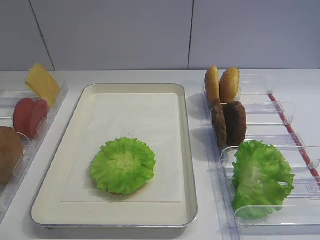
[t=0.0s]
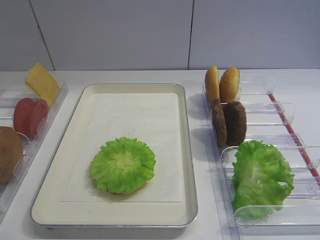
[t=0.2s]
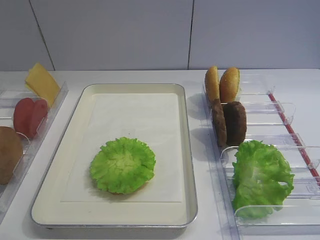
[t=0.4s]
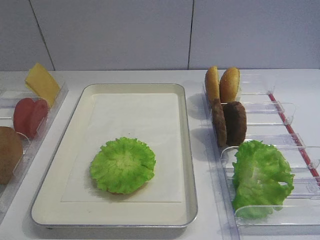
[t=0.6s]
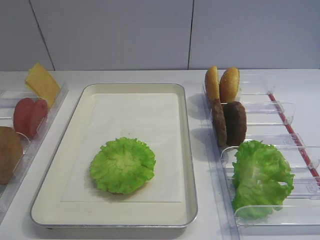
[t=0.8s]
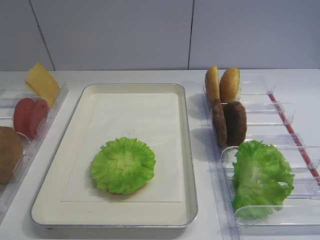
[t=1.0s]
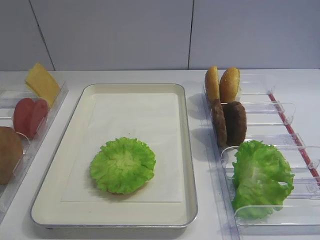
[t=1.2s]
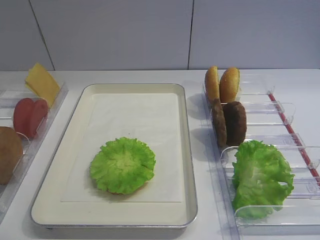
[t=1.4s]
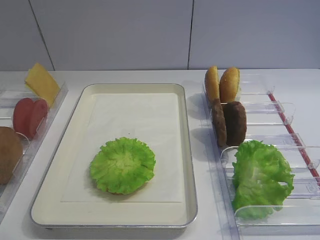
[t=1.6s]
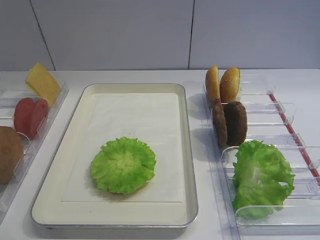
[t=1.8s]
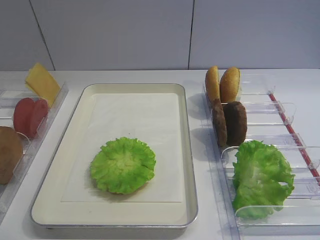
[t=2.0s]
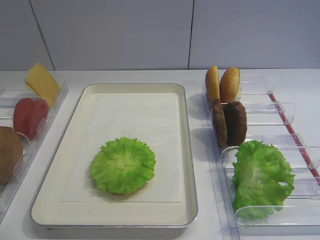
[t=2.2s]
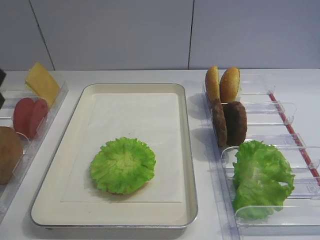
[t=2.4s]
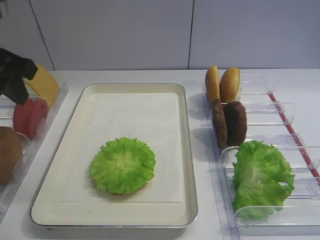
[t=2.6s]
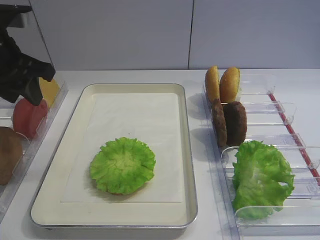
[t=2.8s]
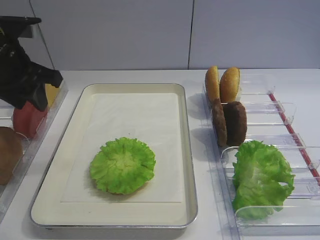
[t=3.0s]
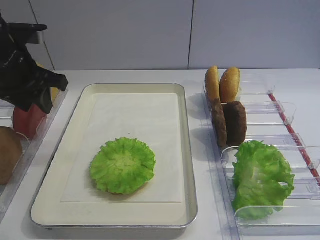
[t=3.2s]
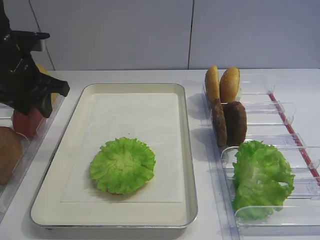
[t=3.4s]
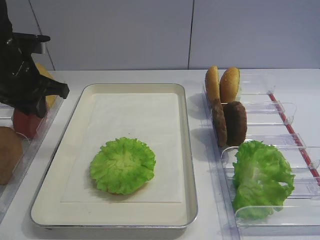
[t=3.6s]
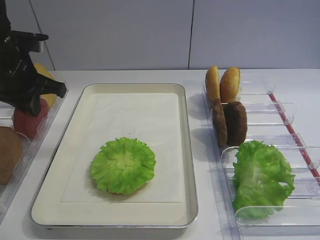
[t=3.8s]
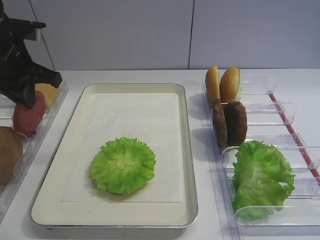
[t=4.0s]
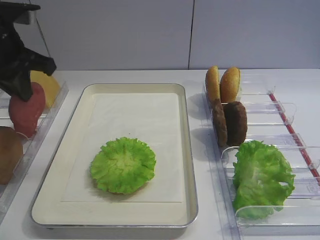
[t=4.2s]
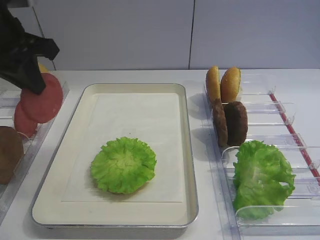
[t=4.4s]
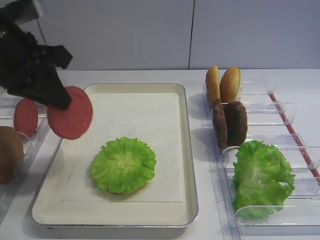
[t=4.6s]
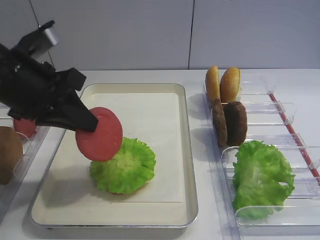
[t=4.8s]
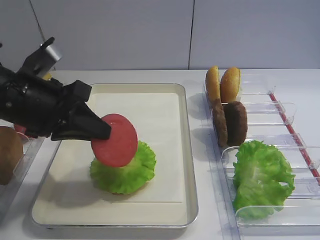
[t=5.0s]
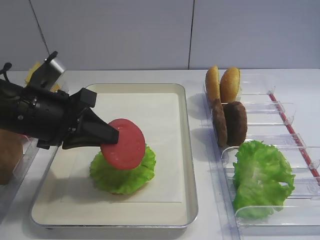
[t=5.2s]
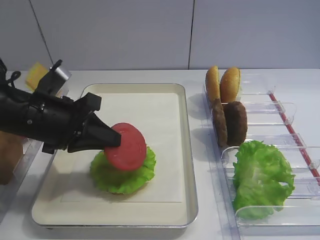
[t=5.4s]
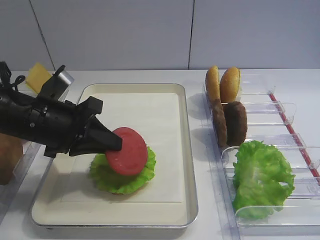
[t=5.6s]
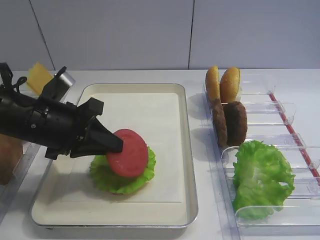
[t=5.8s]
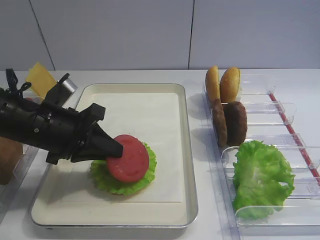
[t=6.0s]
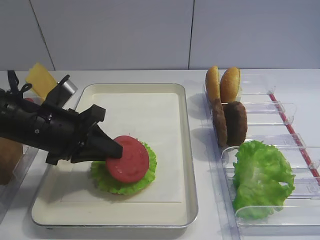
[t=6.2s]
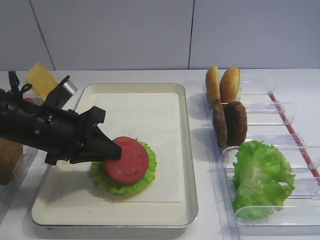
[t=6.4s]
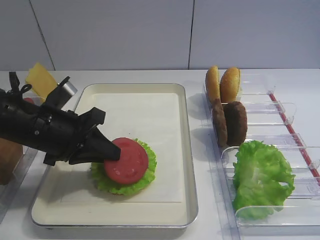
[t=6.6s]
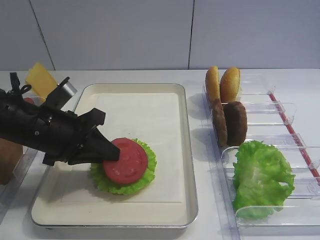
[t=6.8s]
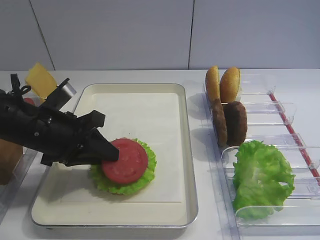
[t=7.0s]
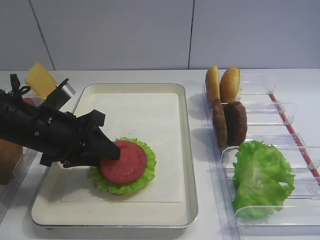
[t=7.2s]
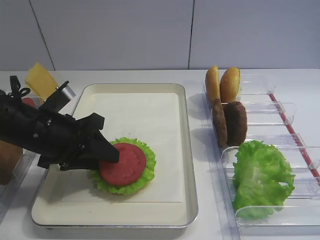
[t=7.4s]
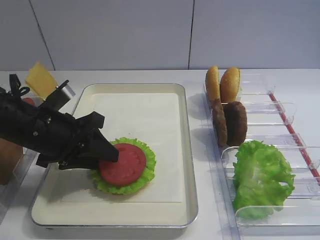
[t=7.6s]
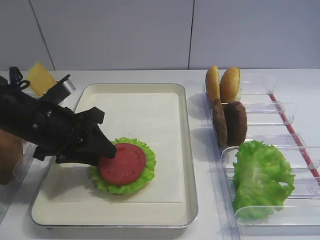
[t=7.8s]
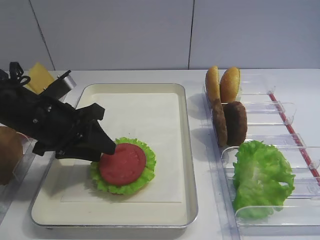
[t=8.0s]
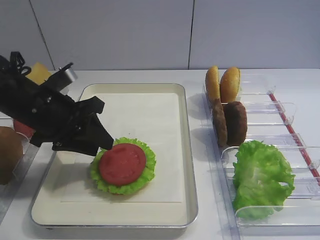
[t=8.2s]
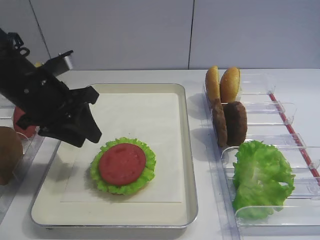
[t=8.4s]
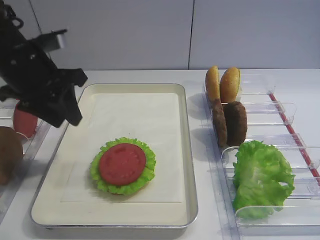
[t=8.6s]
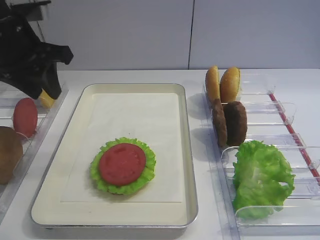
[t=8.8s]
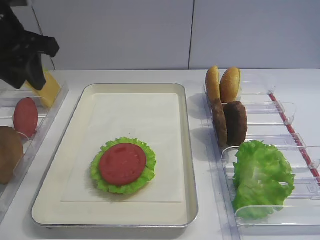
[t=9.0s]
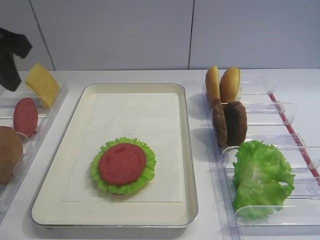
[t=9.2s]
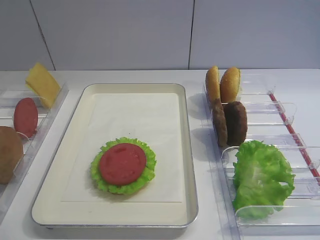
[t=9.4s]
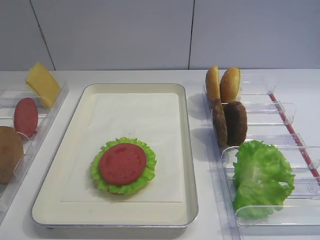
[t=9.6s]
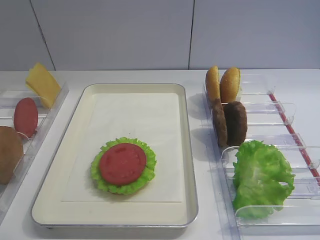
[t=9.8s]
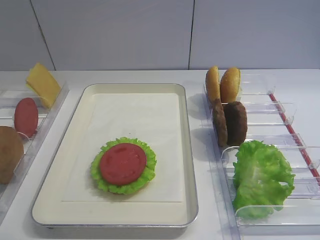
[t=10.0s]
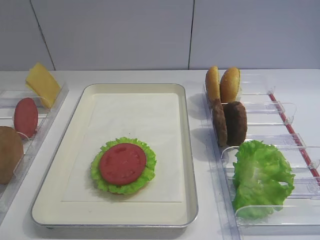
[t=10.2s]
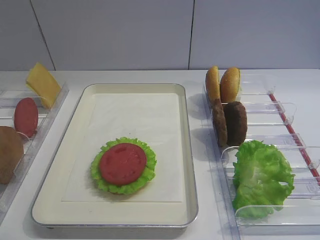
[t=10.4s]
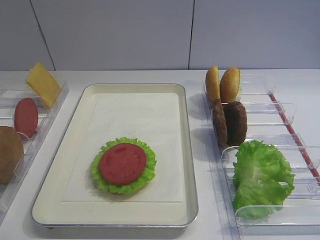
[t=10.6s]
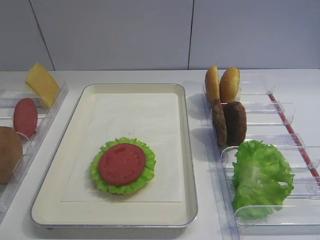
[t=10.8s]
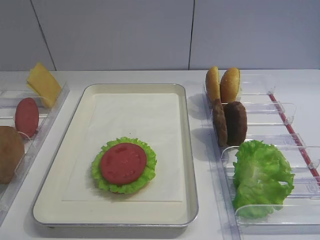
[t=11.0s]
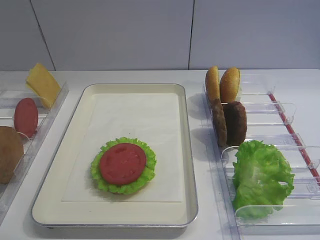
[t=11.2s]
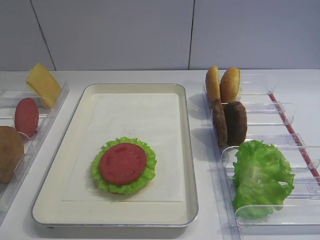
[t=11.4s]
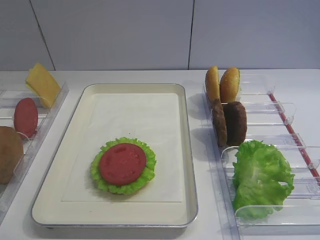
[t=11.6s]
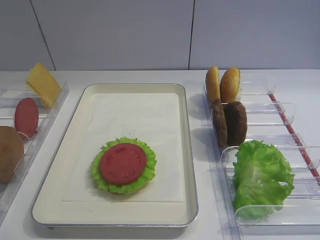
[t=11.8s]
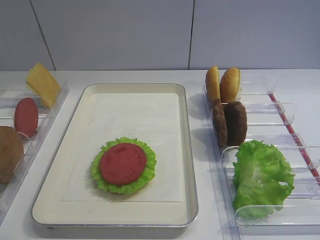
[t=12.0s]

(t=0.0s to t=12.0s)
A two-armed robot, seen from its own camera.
Step, t=0.0s - t=4.0s: Pick up the tomato slice with the left gripper.
Step, t=4.2s - t=8.2s: Place the tomato slice on the lettuce leaf with the left gripper.
t=1.6s - t=3.0s: The left gripper travels forward by approximately 35 cm.
t=3.0s - t=4.4s: The left gripper shifts by approximately 5 cm, and closes up.
t=4.4s - t=6.0s: The left gripper moves downward, some 15 cm.
t=6.0s - t=7.6s: The left gripper opens up.
t=7.6s - t=9.0s: The left gripper is displaced upward by approximately 15 cm.
t=9.0s - t=10.4s: The left gripper goes roughly 35 cm backward.

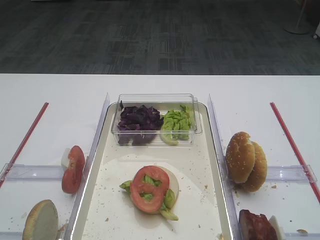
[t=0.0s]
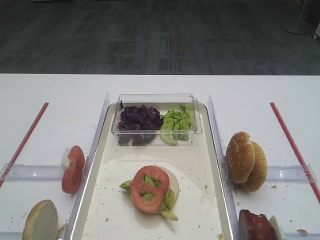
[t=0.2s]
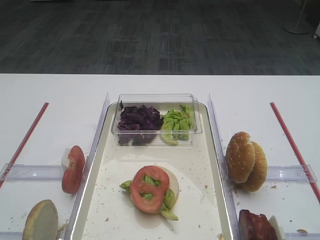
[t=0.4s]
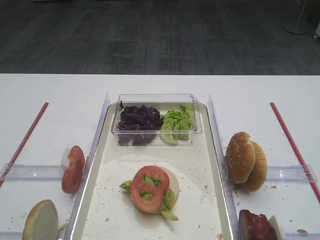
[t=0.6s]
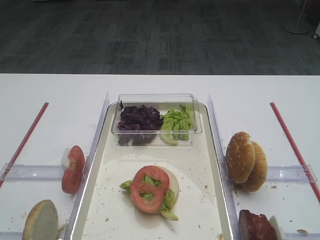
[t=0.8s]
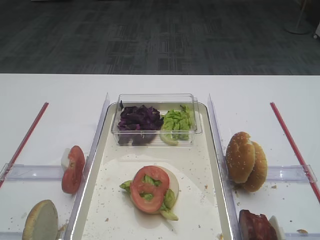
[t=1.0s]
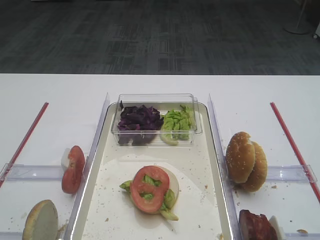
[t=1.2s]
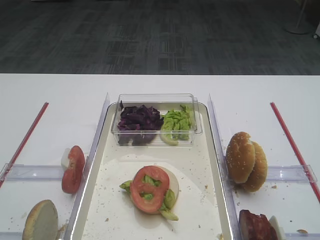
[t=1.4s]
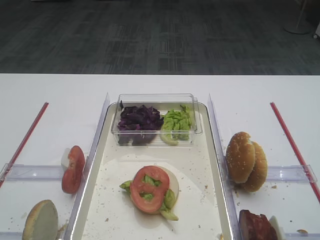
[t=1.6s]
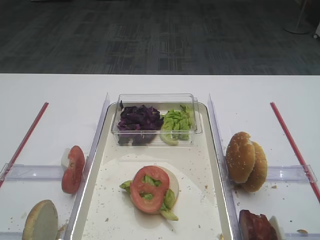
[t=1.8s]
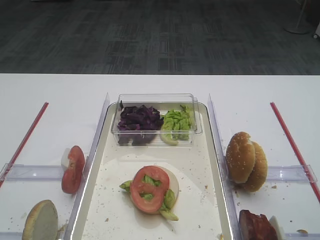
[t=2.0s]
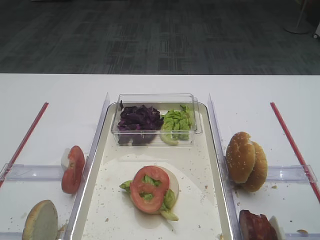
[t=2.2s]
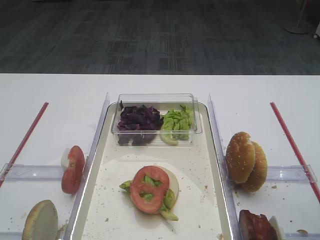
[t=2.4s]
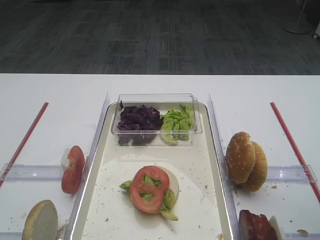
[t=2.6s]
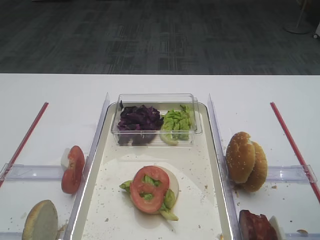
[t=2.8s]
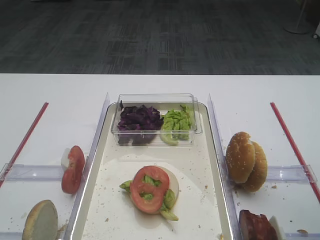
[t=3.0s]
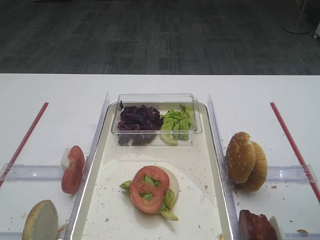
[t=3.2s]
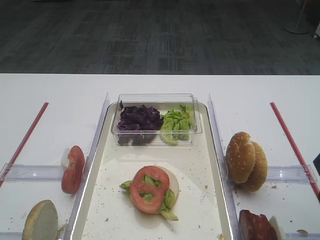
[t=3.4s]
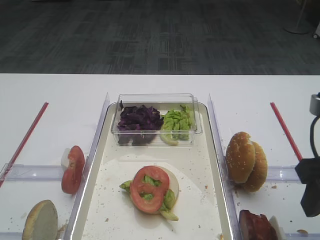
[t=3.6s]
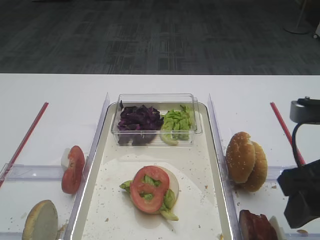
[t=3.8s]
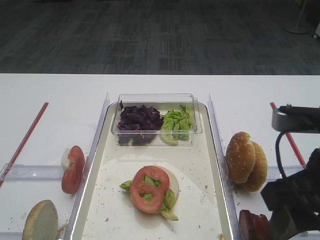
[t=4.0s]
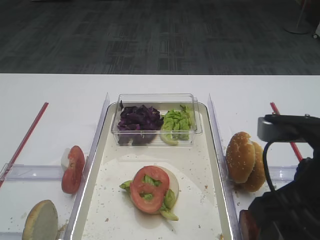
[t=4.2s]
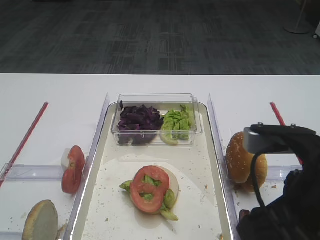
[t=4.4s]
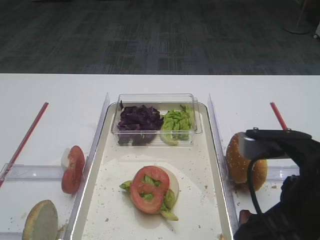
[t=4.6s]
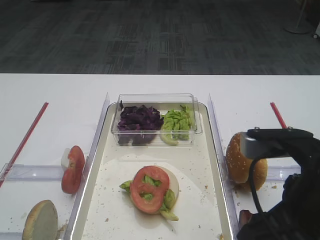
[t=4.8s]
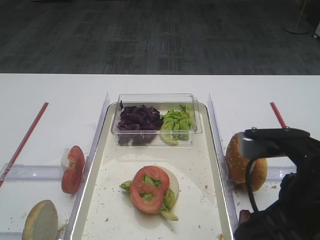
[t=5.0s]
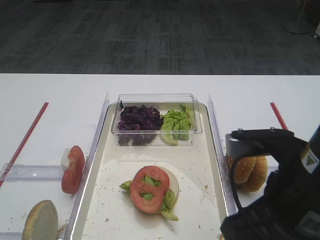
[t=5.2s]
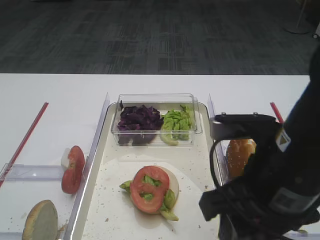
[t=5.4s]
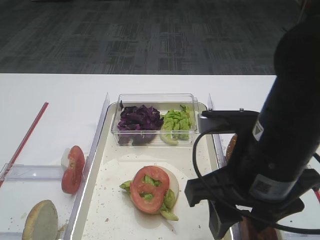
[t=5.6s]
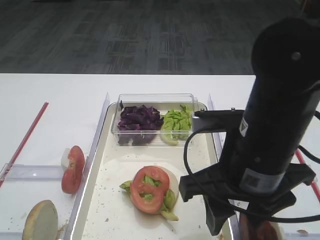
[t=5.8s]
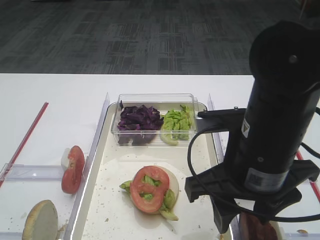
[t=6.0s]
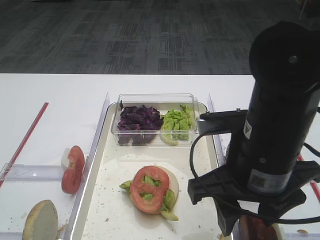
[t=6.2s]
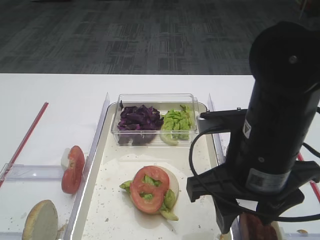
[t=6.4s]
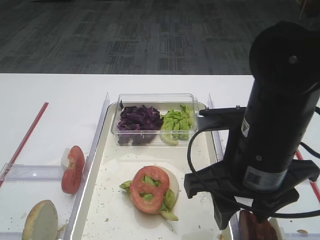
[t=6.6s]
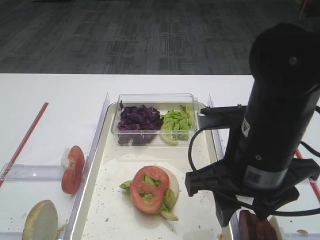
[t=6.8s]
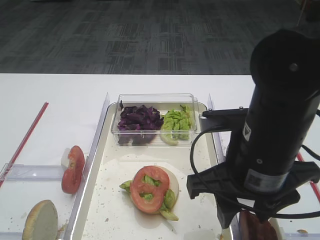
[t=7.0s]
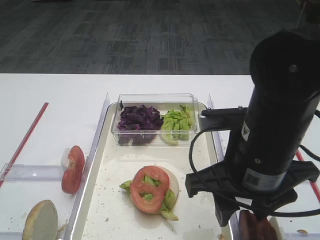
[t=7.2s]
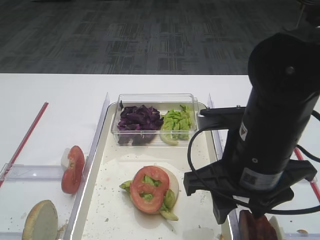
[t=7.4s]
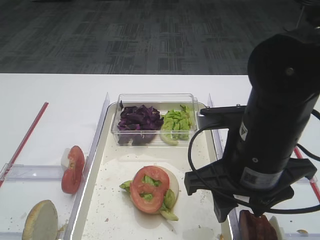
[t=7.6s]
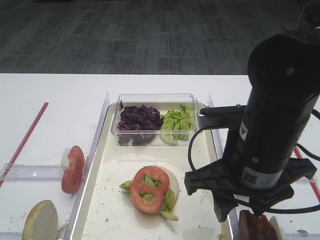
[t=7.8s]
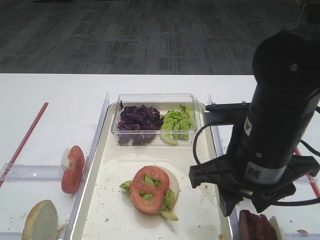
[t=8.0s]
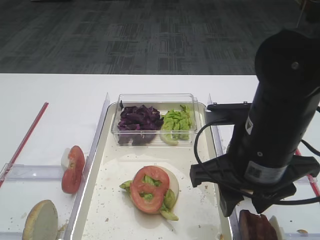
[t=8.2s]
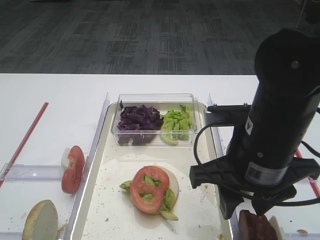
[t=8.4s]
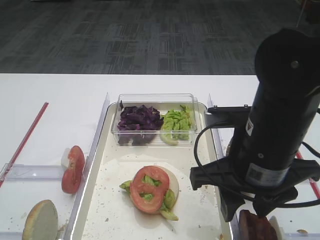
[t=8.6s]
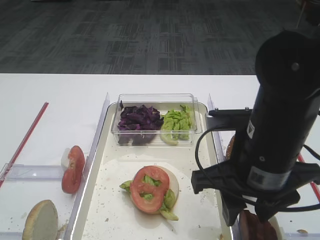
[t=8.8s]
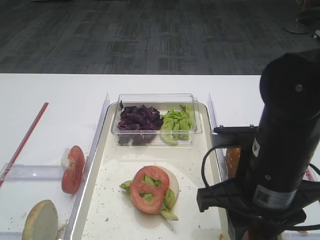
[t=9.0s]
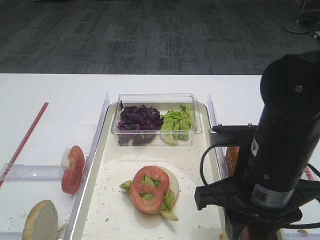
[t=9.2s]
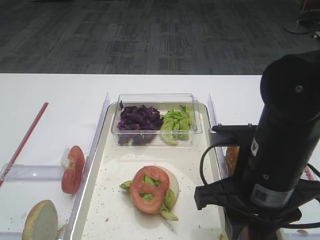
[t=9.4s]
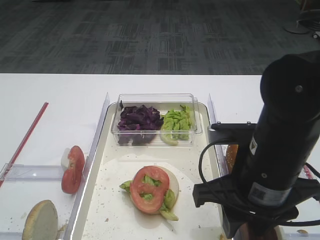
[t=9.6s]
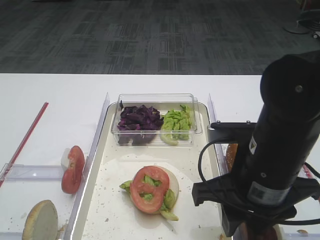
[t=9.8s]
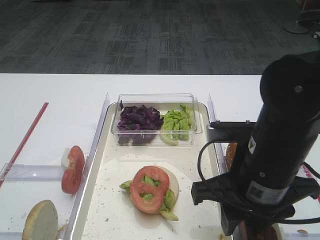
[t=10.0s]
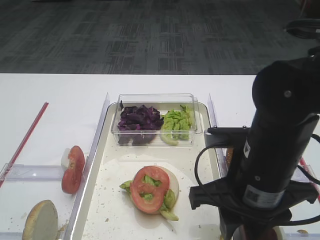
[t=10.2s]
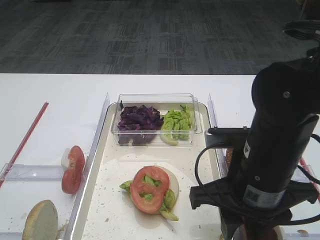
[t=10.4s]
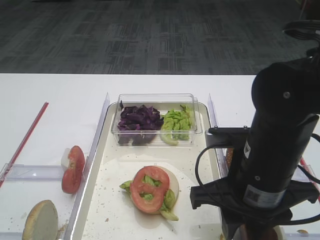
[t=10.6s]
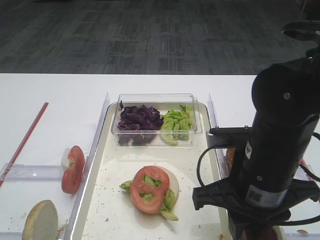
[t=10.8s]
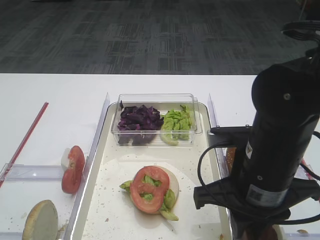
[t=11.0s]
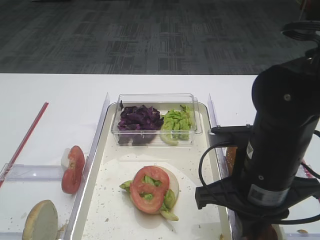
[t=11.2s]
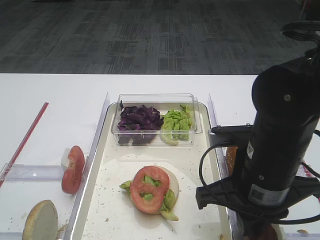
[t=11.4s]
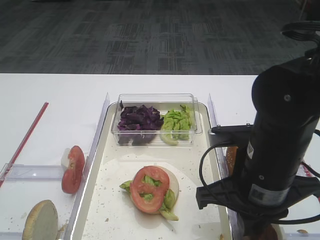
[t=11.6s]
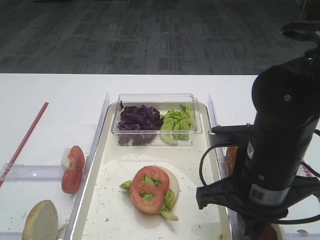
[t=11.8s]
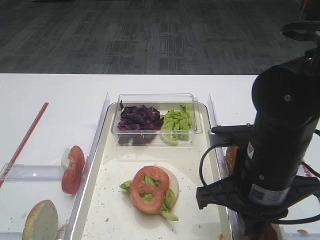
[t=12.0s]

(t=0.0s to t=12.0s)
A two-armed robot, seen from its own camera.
t=3.0s - t=4.4s: The right gripper moves to the left and backward, roughly 15 cm.
t=4.4s - t=6.0s: The right gripper is displaced forward by roughly 5 cm.
t=6.0s - t=9.0s: There are only small adjustments of the grippers.
t=9.0s - t=10.4s: Both grippers stay put.
t=10.4s - t=12.0s: The right gripper closes up.
